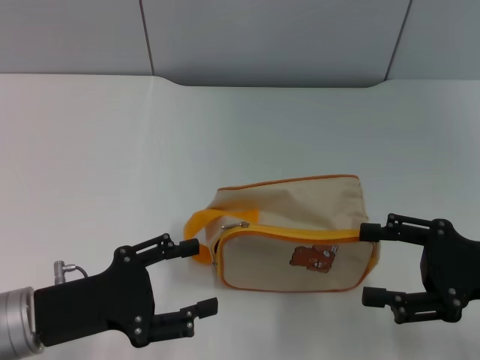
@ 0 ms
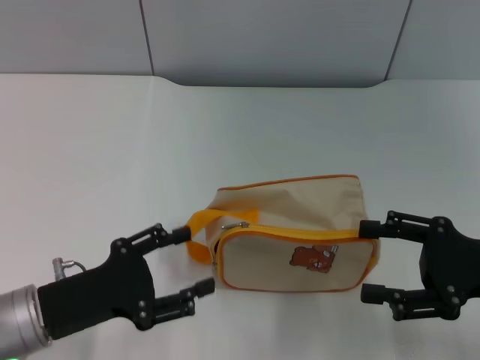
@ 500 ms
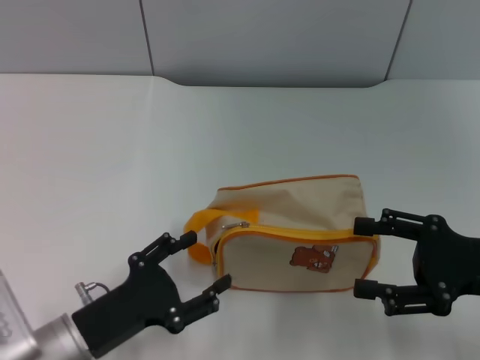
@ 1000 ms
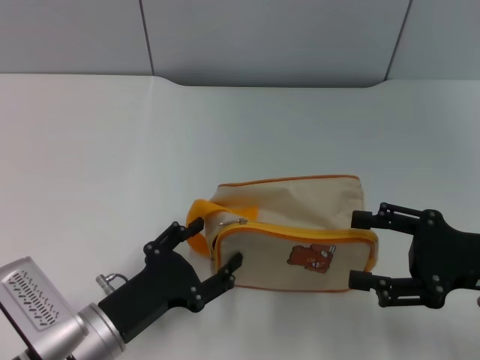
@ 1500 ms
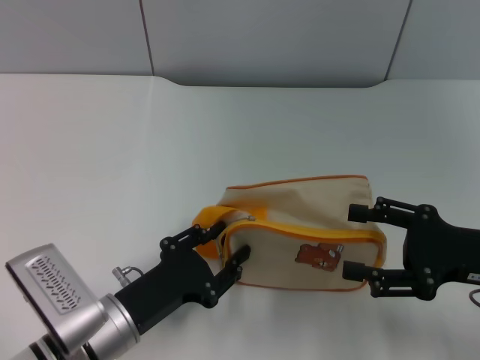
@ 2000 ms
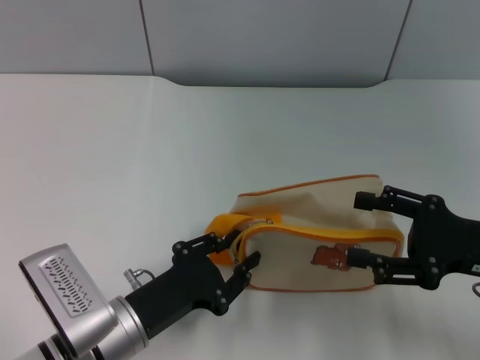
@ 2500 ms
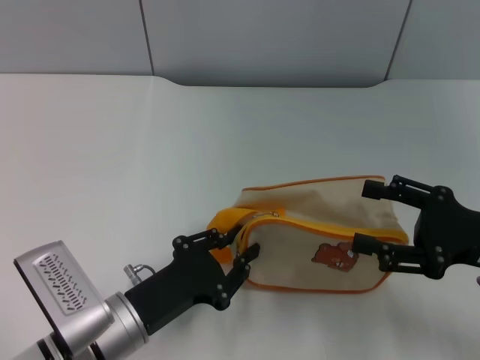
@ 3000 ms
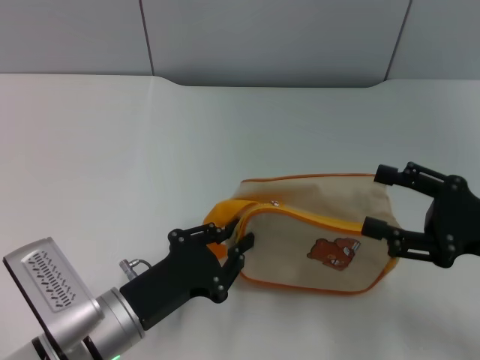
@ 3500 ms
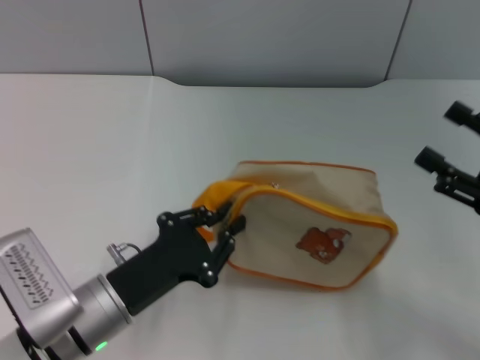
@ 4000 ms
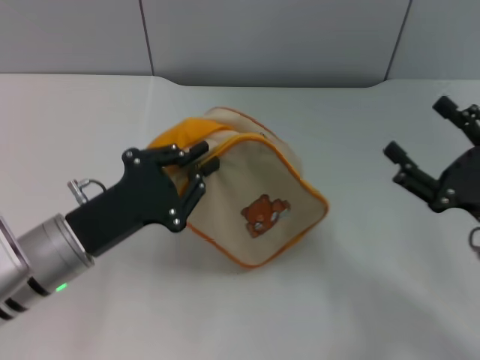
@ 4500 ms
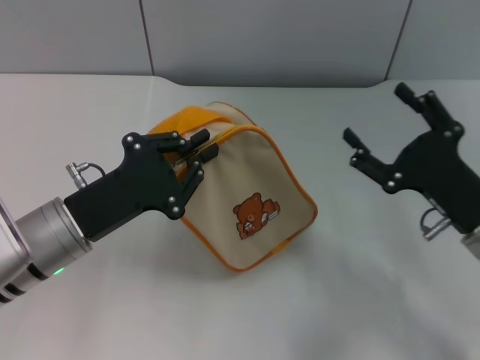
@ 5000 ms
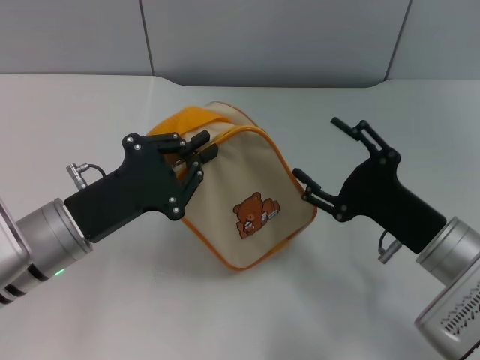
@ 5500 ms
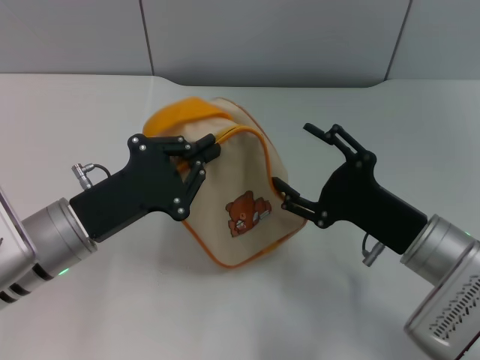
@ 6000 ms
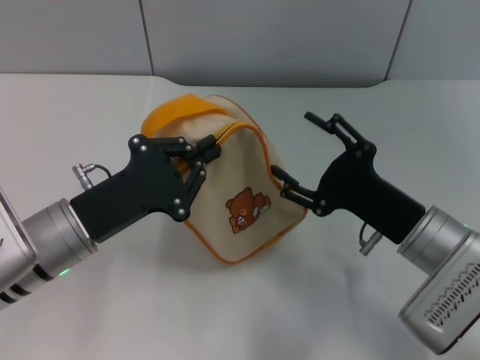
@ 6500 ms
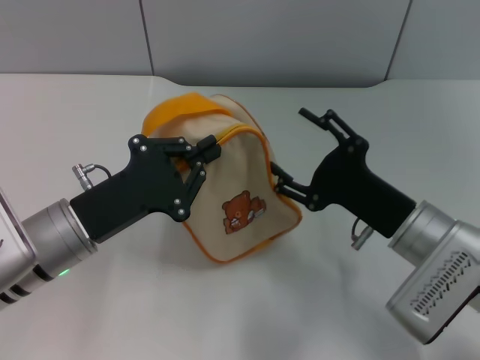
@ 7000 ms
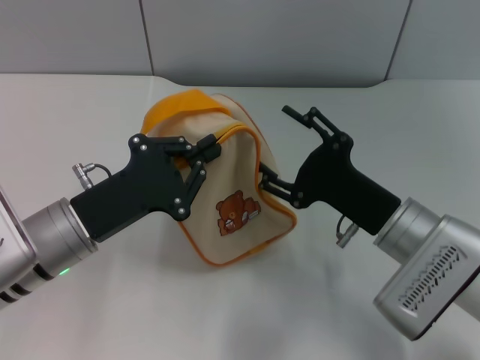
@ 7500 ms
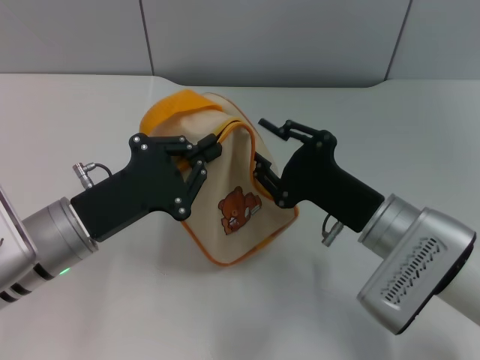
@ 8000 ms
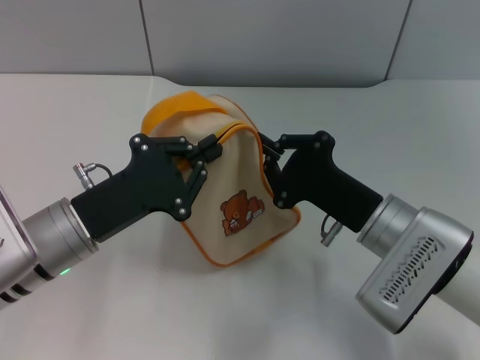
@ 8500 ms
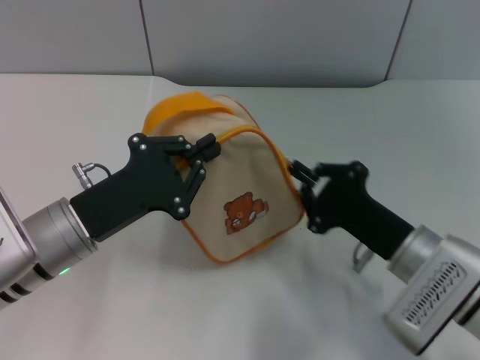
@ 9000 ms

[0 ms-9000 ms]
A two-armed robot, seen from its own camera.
Step, 0 ms to 4500 ms: Pick up the bag with left gripper.
0 ms to 2000 ms: The left gripper moves to the right and downward, about 10 cm.
2000 ms to 4500 ms: The left gripper shifts roughly 5 cm upward, and closes.
4500 ms to 7000 ms: The right gripper moves to the left, some 10 cm.
7000 ms to 9000 ms: The right gripper closes.

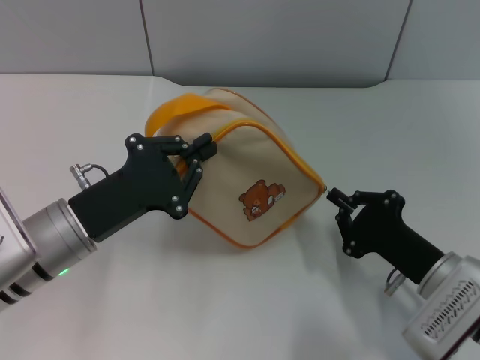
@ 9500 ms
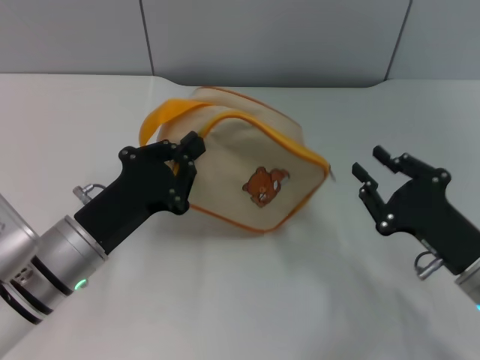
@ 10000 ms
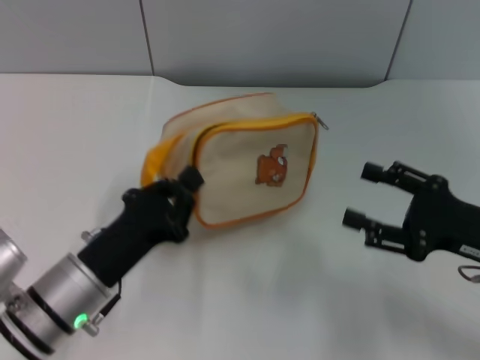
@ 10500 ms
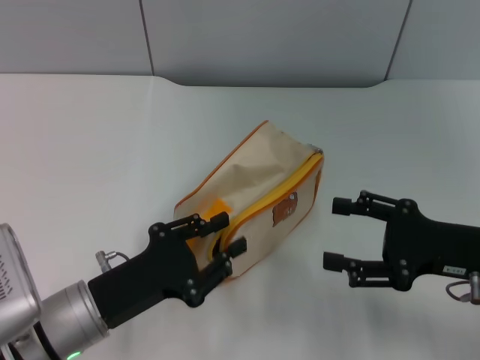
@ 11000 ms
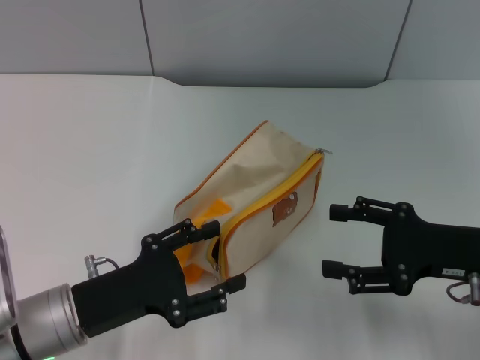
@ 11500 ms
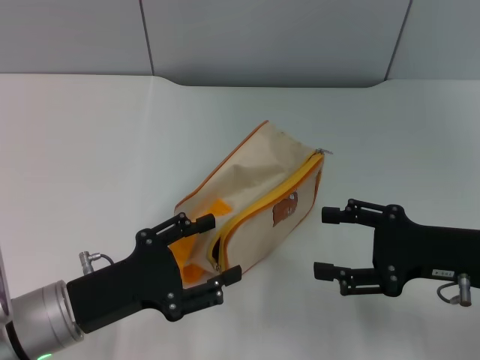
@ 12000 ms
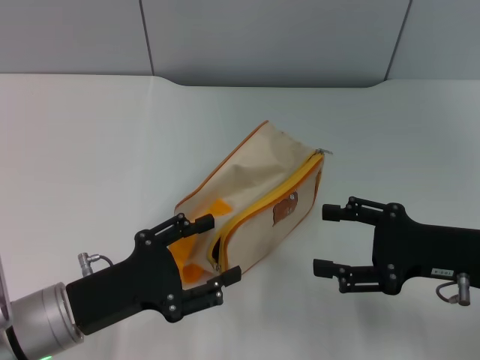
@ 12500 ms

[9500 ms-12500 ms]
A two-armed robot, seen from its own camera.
Step, 10000 ms to 11000 ms: Place the bag on the table with left gripper.
9500 ms to 11000 ms: The right gripper moves upward and to the right, some 10 cm, and opens; the left gripper goes about 5 cm backward.
11000 ms to 12500 ms: The left gripper opens up.

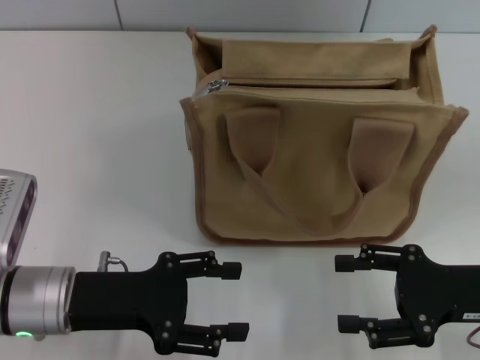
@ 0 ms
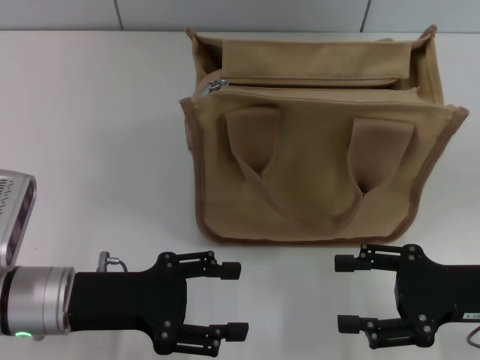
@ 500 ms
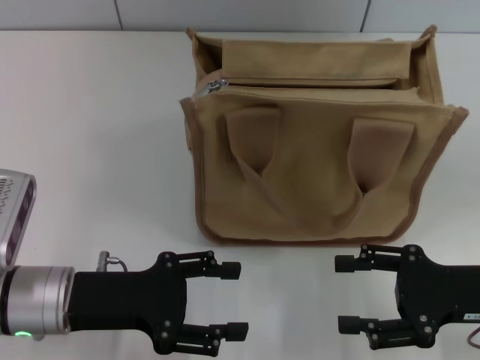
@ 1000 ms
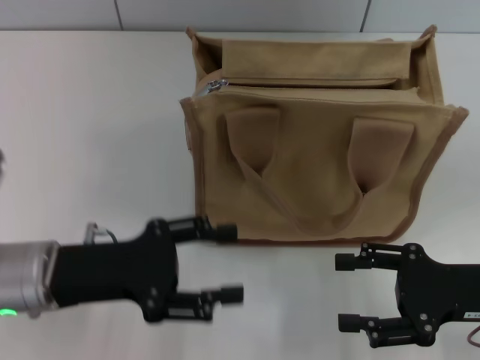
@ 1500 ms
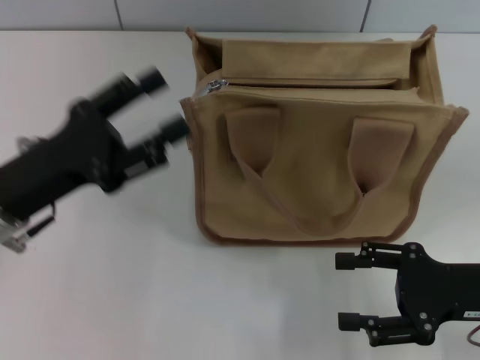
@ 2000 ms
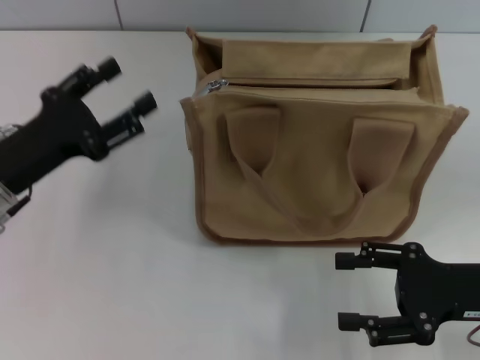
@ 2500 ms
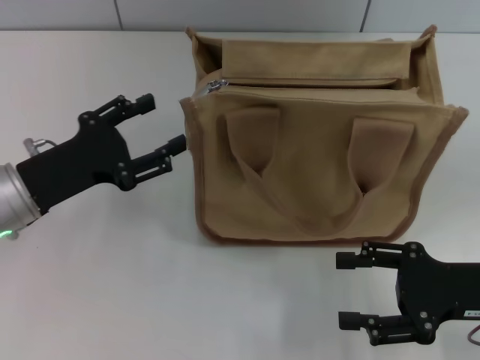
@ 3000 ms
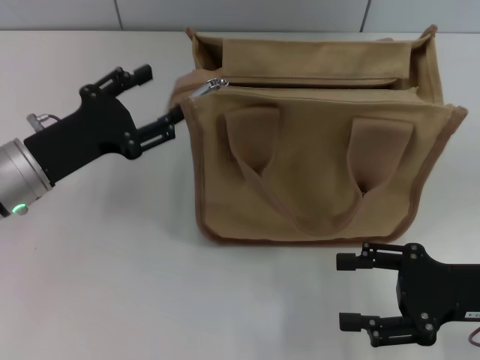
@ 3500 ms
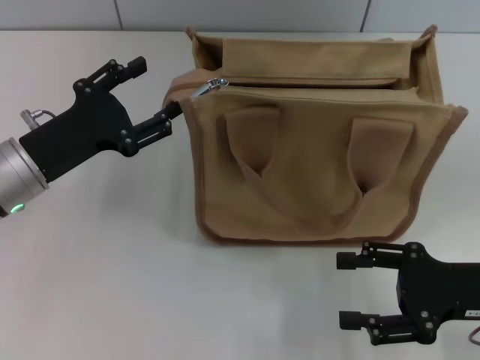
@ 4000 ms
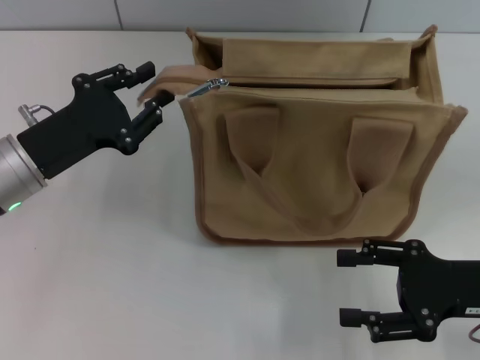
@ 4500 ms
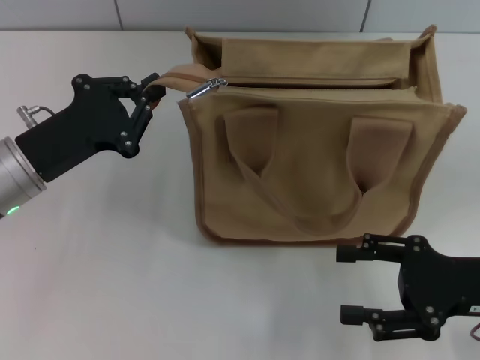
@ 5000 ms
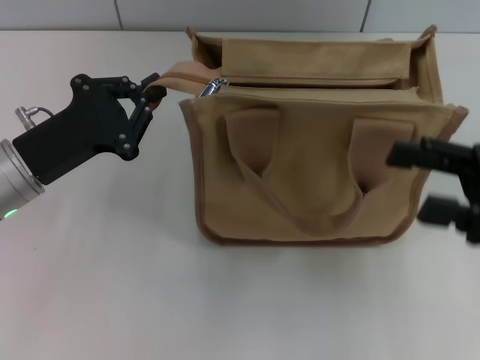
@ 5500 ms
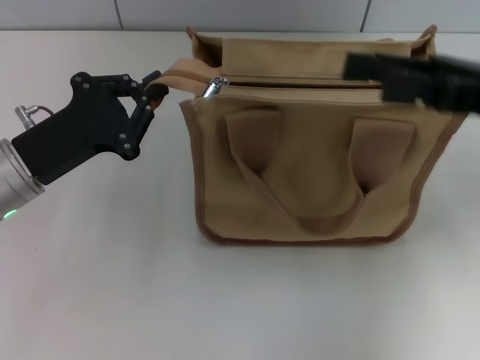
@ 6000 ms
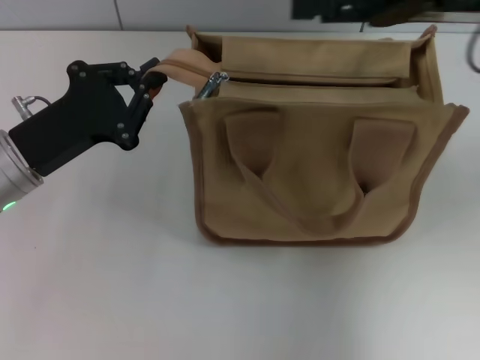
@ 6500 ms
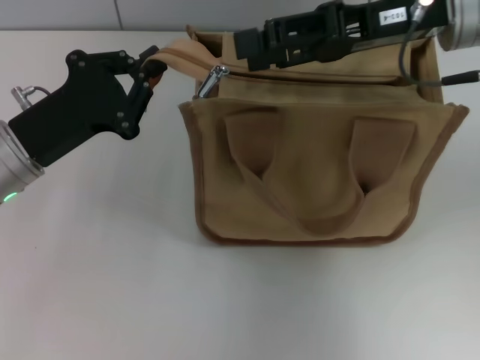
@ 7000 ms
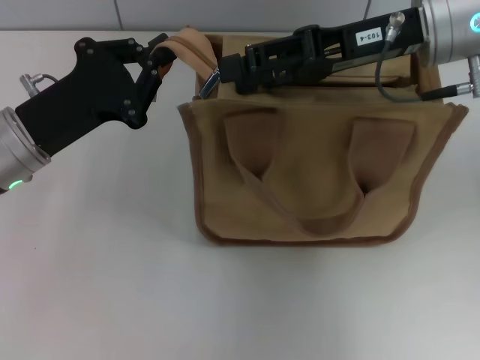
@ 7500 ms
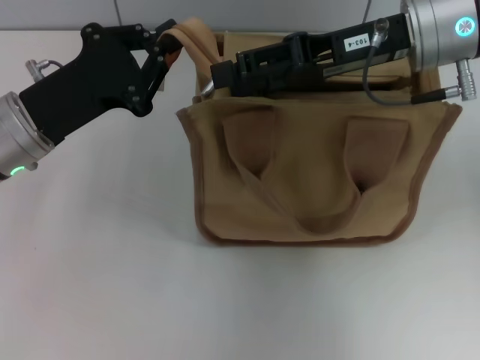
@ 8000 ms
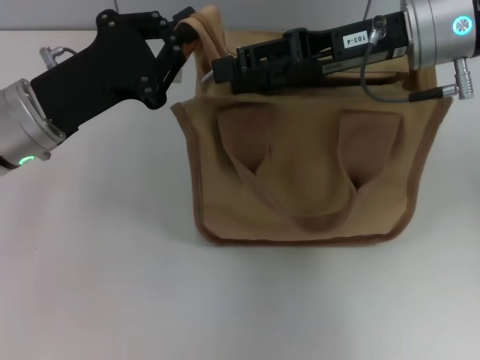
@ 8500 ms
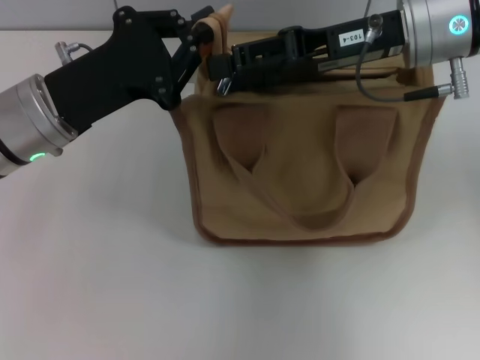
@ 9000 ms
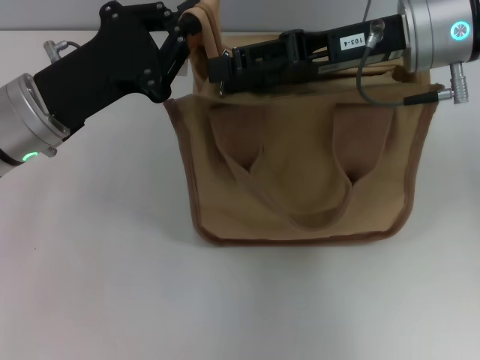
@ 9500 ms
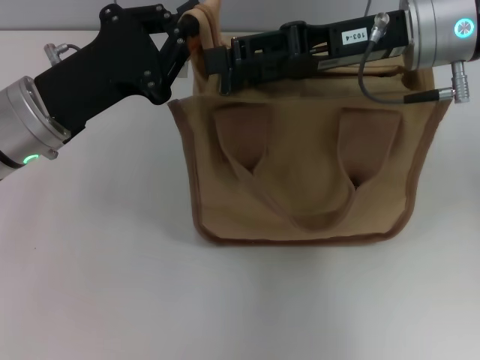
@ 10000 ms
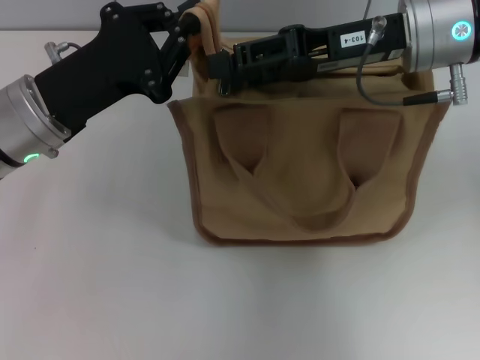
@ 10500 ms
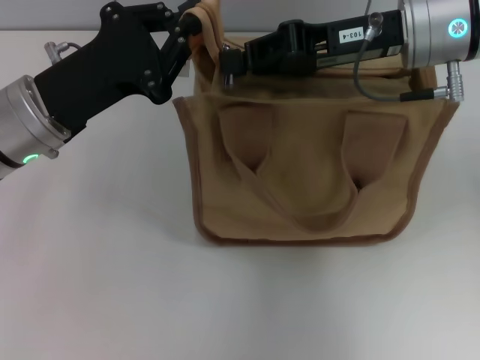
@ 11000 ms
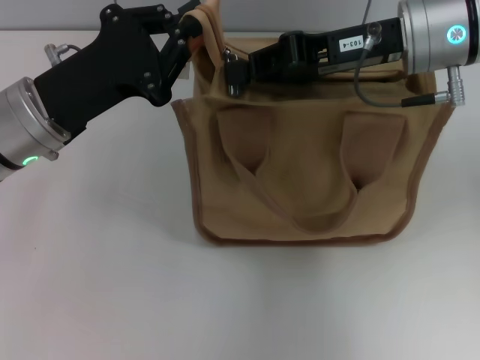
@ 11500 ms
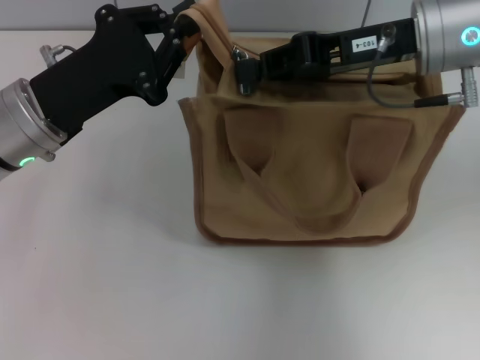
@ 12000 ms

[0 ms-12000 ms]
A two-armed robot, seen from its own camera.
0 ms to 2000 ms: The left gripper moves approximately 5 cm.
2000 ms to 4000 ms: The left gripper shifts by about 5 cm.
4000 ms to 6000 ms: The left gripper closes its fingers. The right gripper is displaced upward and forward by approximately 15 cm.
6000 ms to 8000 ms: The right gripper goes some 10 cm to the left and forward.
8000 ms to 10000 ms: The grippers stay close to where they were, moving slightly.
10000 ms to 12000 ms: The right gripper closes.

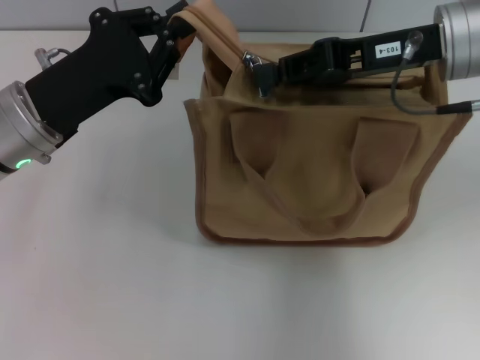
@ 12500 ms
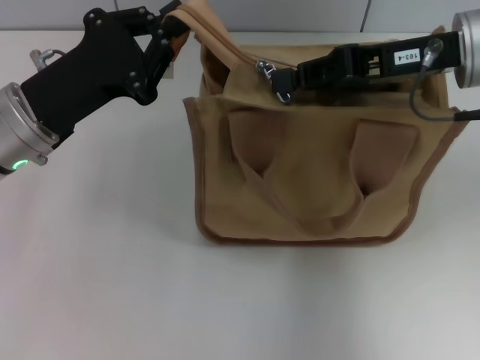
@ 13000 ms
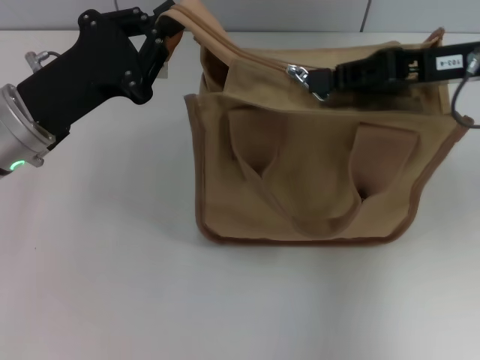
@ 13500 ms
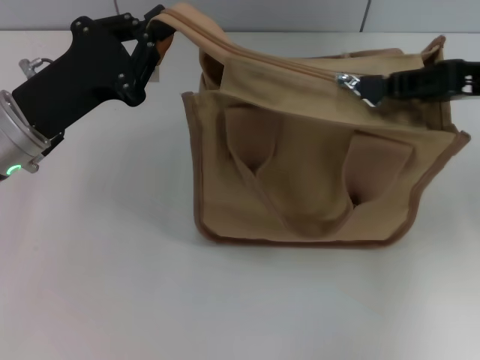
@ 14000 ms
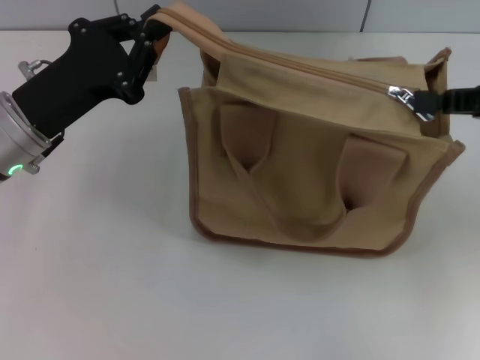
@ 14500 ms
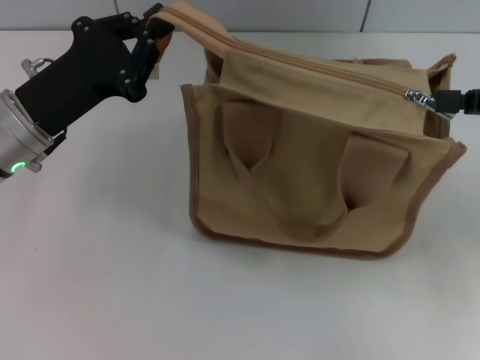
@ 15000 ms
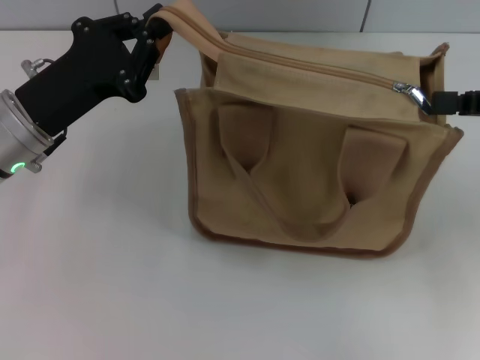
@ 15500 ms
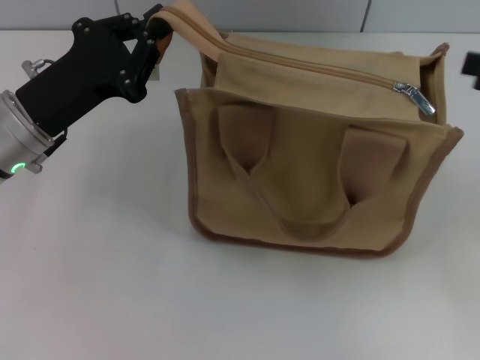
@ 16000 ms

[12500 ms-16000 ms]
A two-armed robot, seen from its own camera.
Step, 12500 ms to 15500 ms: Pull up the zipper with your right hand.
12500 ms to 14500 ms: The right gripper is displaced to the right by some 15 cm.
14500 ms to 16000 ms: The right gripper opens its fingers.
